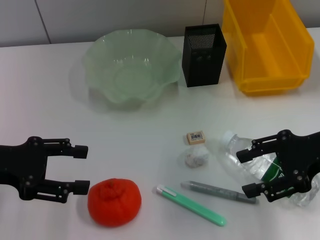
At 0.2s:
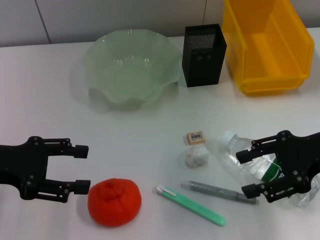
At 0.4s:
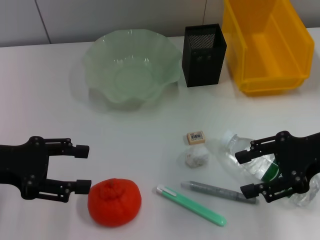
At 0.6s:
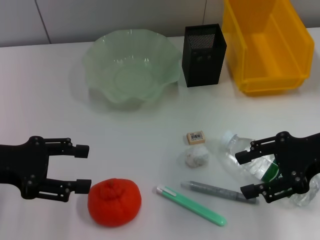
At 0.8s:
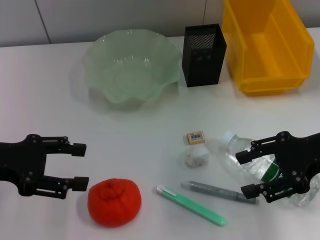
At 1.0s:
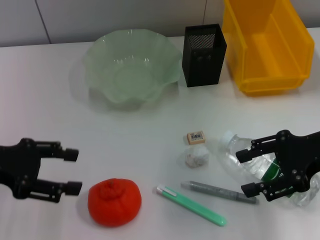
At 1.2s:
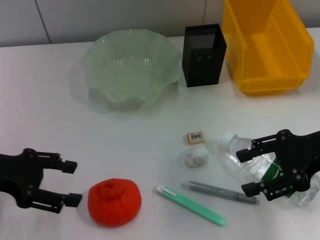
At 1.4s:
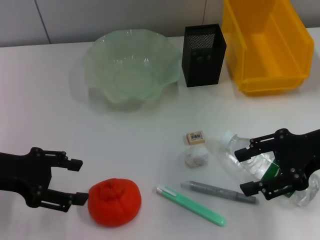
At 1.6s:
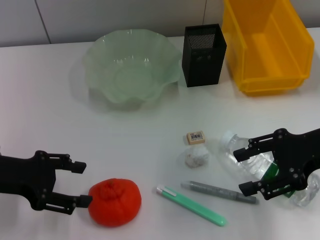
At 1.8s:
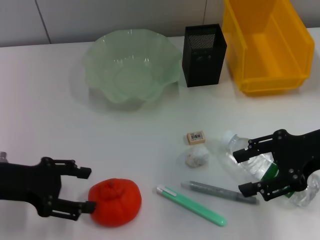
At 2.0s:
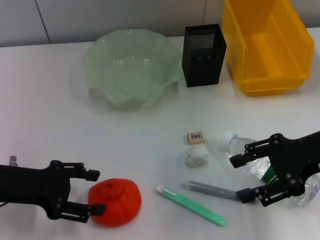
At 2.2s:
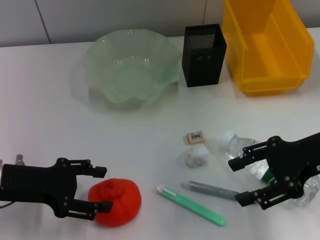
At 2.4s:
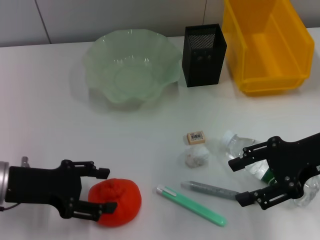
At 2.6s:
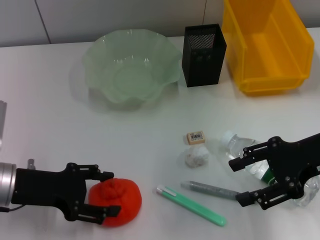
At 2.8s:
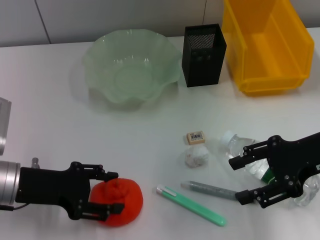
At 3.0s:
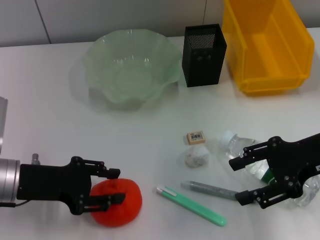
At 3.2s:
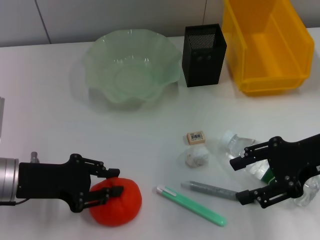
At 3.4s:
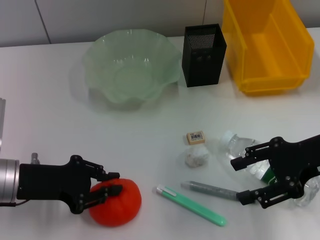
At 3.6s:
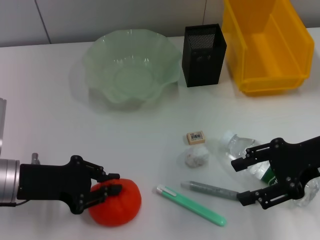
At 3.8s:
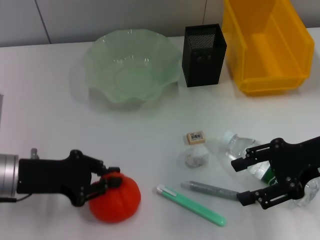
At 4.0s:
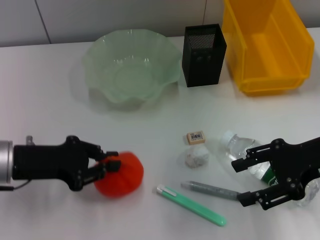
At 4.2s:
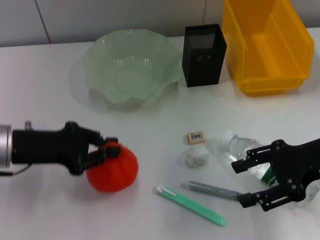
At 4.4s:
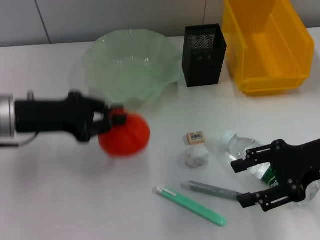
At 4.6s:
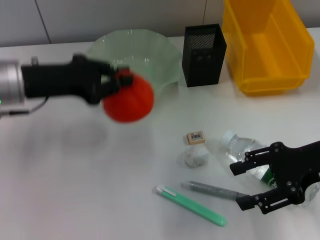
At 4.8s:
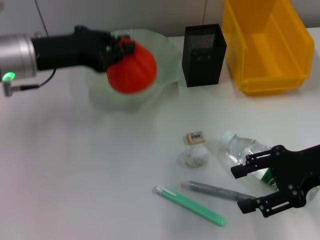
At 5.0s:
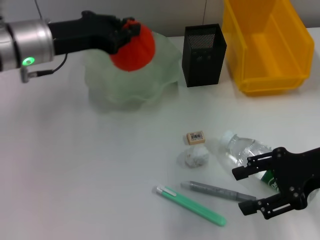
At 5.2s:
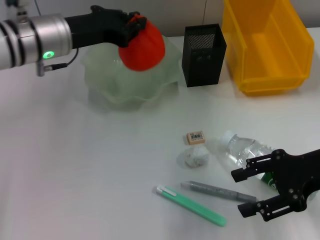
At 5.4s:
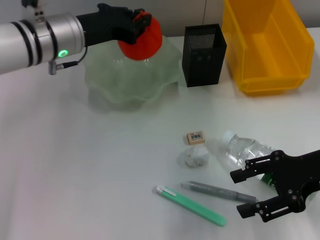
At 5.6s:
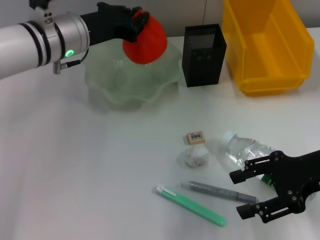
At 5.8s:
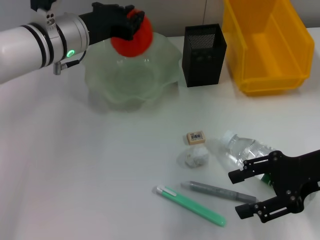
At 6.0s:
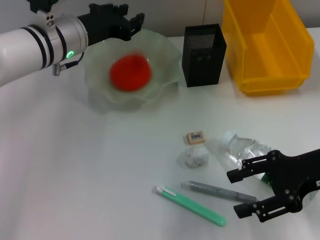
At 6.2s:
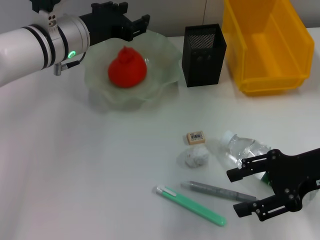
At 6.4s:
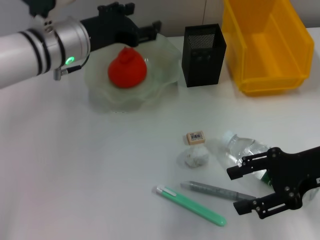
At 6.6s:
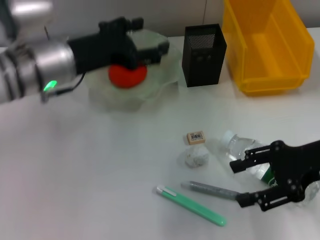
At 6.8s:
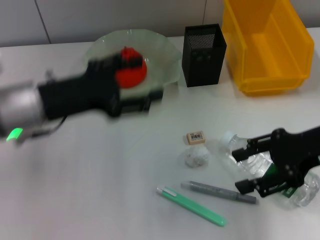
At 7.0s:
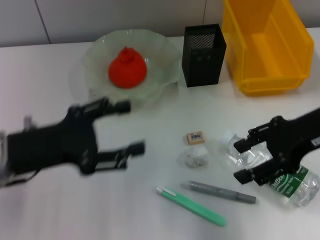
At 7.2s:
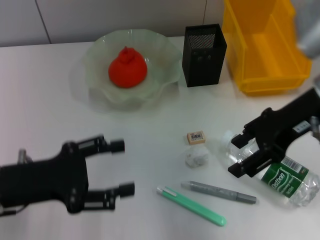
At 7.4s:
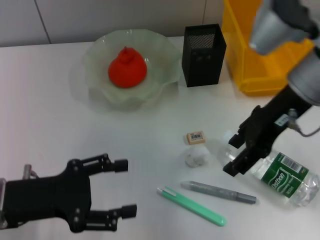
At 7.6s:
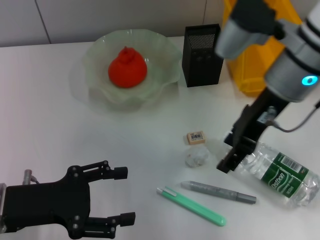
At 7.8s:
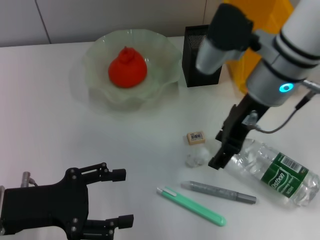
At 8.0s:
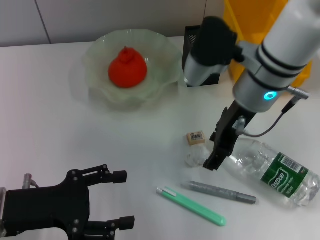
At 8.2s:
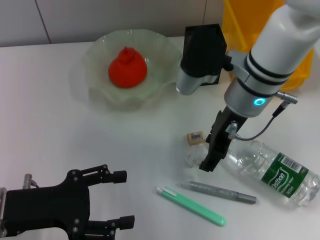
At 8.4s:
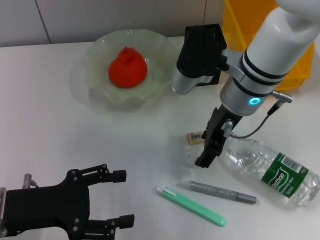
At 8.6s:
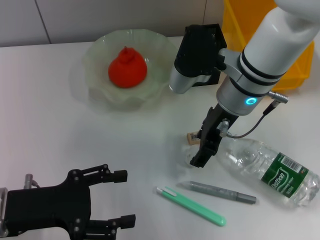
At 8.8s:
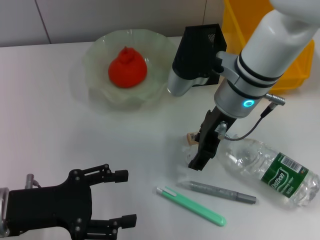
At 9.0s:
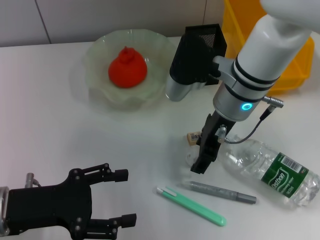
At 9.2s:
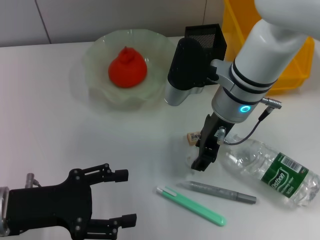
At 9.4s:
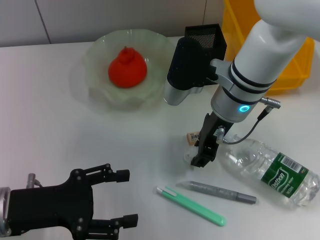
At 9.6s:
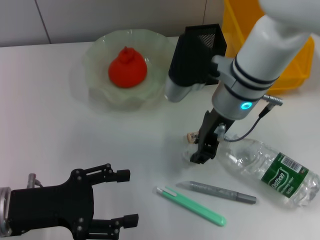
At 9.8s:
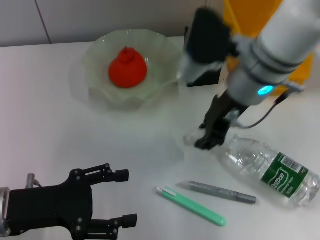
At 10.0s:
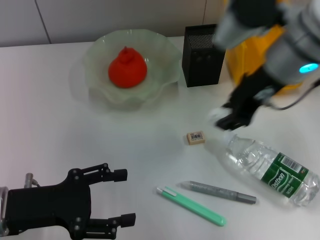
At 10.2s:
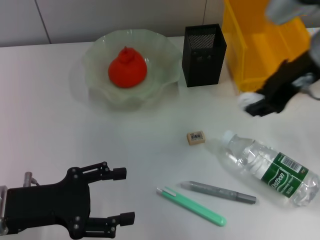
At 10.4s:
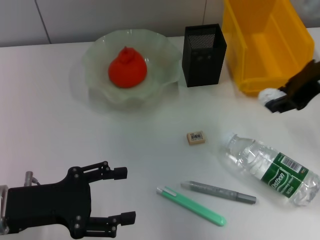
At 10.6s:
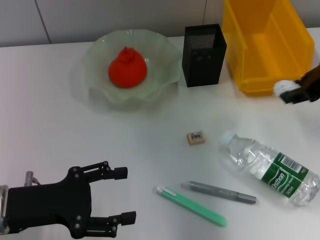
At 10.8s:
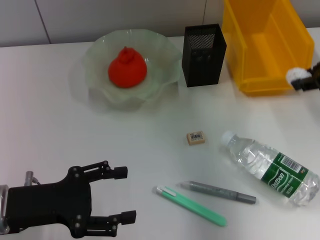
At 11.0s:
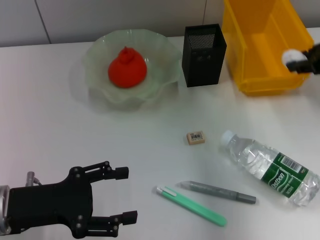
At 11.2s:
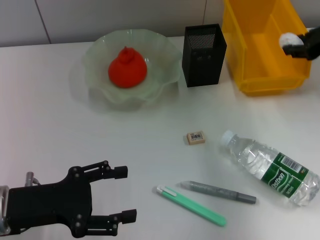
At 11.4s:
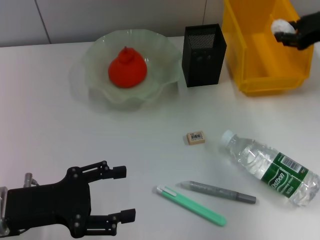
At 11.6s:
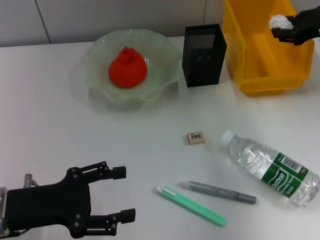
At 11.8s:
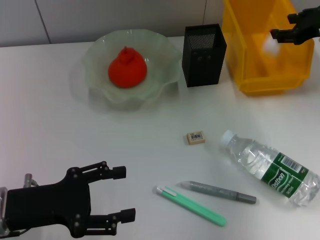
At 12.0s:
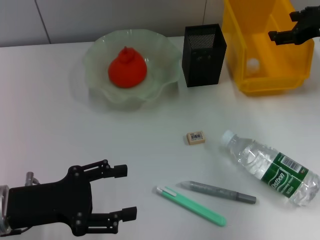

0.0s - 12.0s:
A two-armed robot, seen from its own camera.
Step, 0.0s - 3.6s: Grab the orange with the left hand.
Step, 3.8s - 6.2s: Place the orange into the fruit bowl with the left hand.
Step, 6.4s - 9.2s: Grab the paper ball with the right hand.
0.0s - 1.6s: The grippers move only a little.
1.6s - 3.0s: The left gripper changes place by approximately 5 cm.
3.0s - 4.4s: The left gripper heads upward, covering roughly 5 cm, and closes.
4.4s - 6.0s: The left gripper travels forward and to the right by approximately 15 cm.
6.0s - 7.6s: The left gripper moves backward and to the left, roughly 20 cm, and opens its fingers. The right gripper shifts about 15 cm to the left, forward and upward.
7.6s - 9.0s: The right gripper moves downward and to the left, about 10 cm.
9.0s - 10.4s: The right gripper moves to the right and upward, about 15 cm, and closes its fingers.
10.4s - 12.0s: The right gripper goes approximately 15 cm forward, to the right and downward.

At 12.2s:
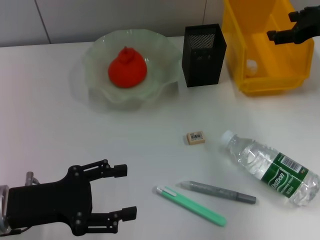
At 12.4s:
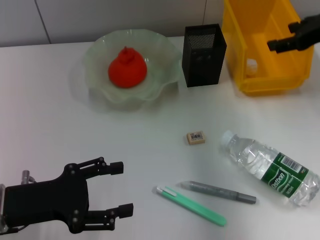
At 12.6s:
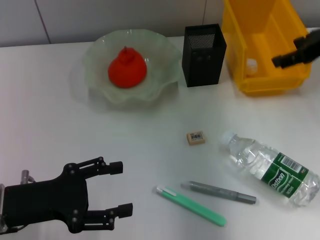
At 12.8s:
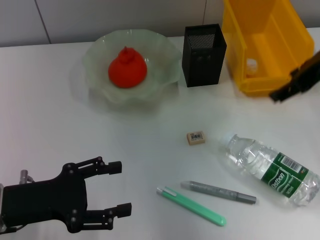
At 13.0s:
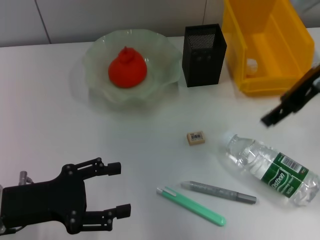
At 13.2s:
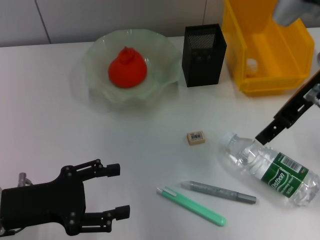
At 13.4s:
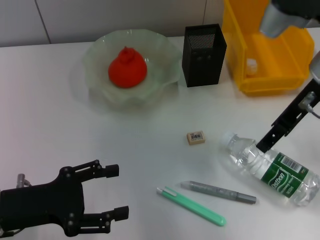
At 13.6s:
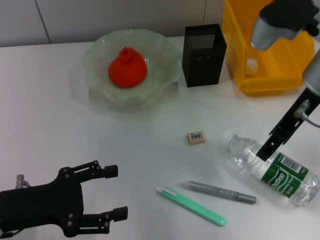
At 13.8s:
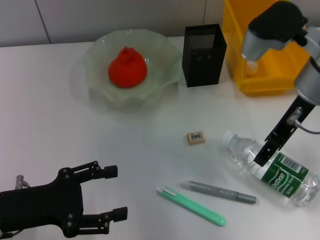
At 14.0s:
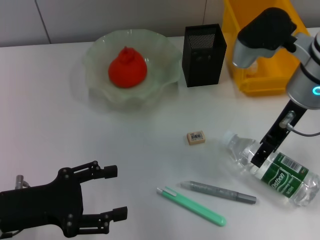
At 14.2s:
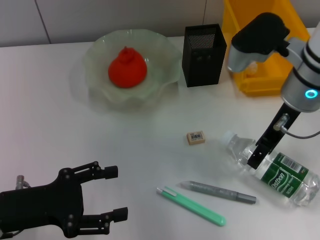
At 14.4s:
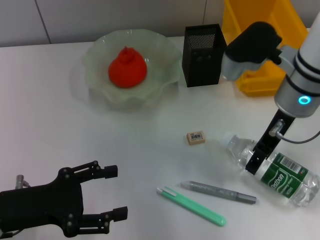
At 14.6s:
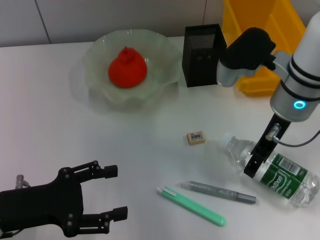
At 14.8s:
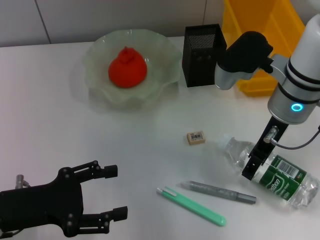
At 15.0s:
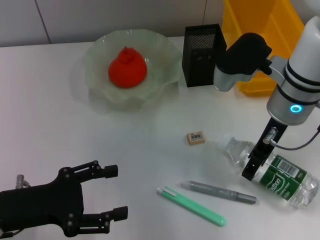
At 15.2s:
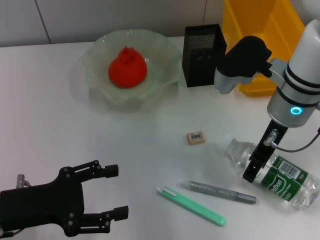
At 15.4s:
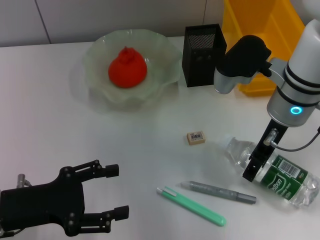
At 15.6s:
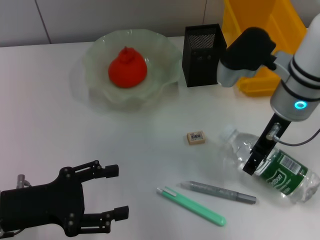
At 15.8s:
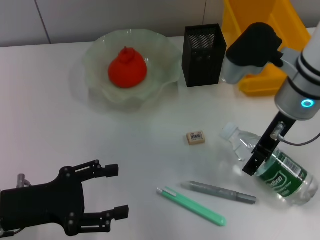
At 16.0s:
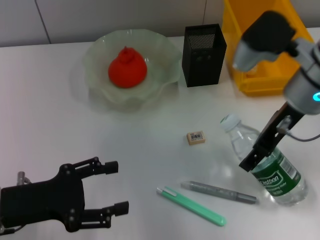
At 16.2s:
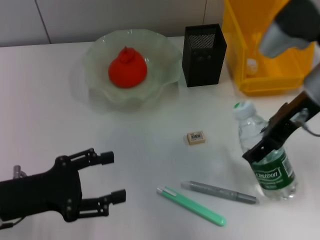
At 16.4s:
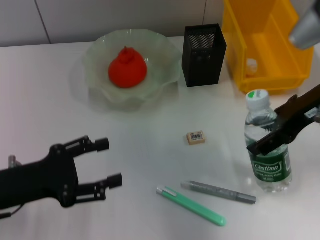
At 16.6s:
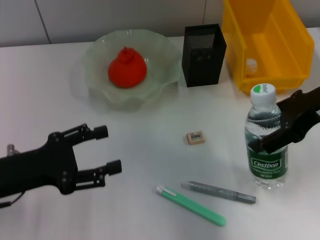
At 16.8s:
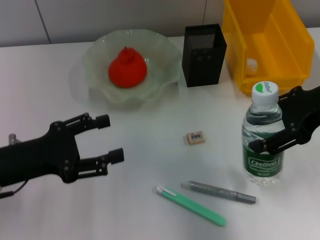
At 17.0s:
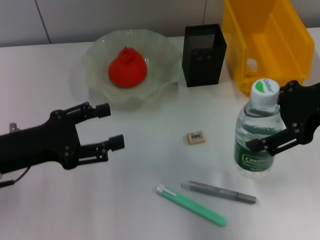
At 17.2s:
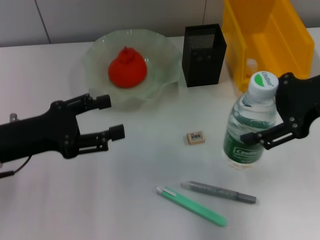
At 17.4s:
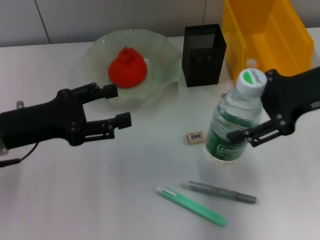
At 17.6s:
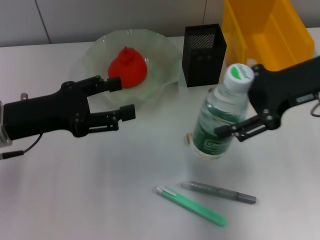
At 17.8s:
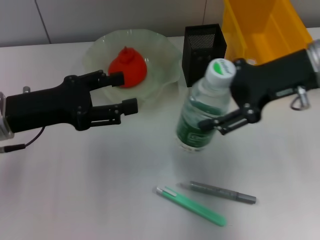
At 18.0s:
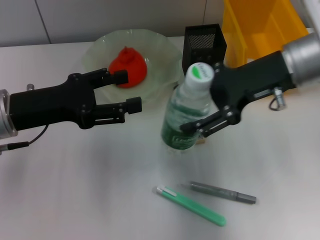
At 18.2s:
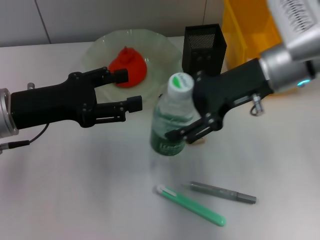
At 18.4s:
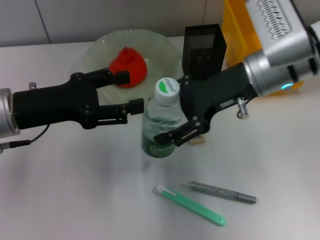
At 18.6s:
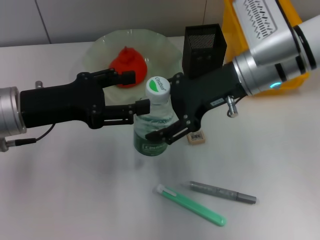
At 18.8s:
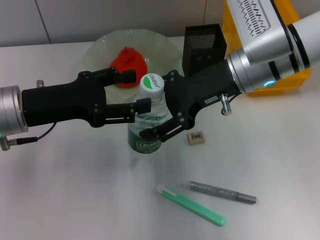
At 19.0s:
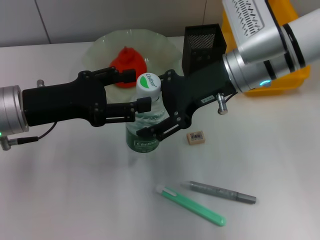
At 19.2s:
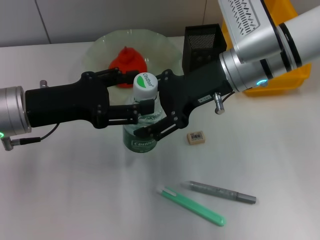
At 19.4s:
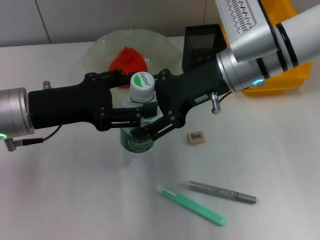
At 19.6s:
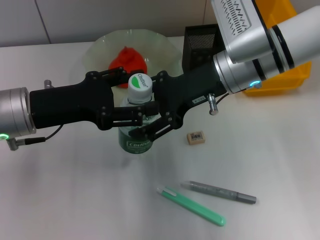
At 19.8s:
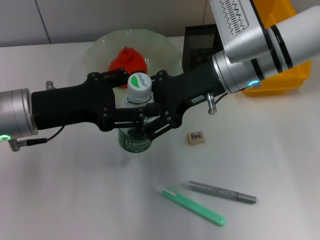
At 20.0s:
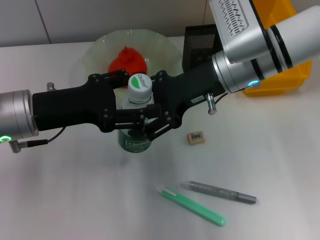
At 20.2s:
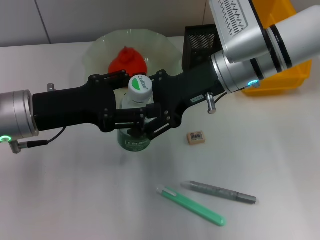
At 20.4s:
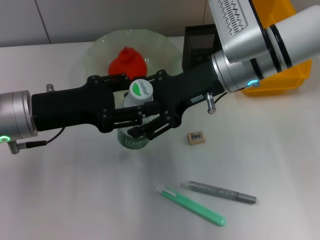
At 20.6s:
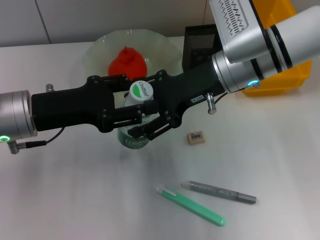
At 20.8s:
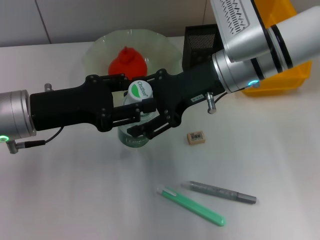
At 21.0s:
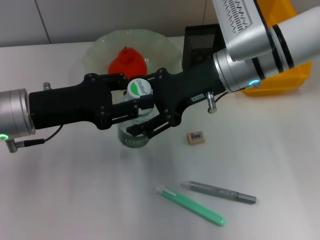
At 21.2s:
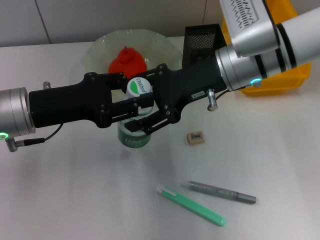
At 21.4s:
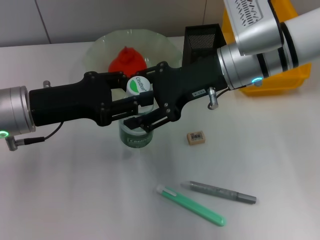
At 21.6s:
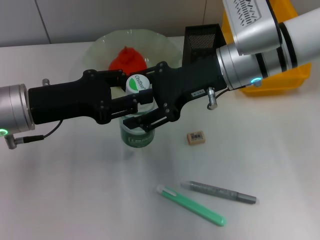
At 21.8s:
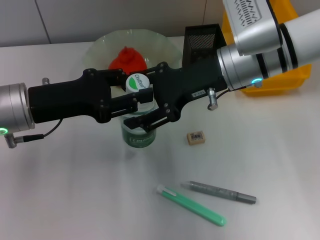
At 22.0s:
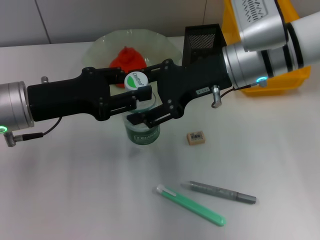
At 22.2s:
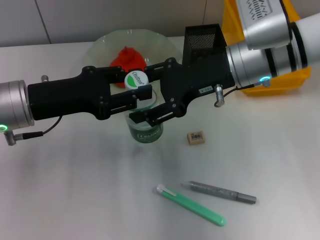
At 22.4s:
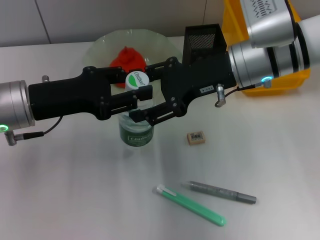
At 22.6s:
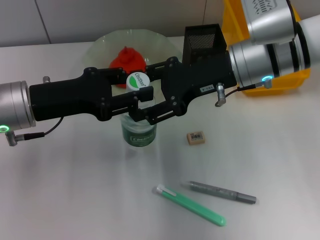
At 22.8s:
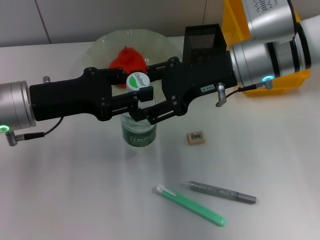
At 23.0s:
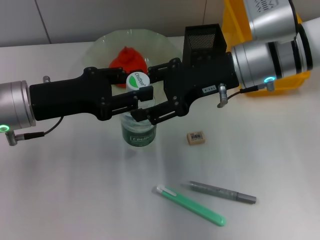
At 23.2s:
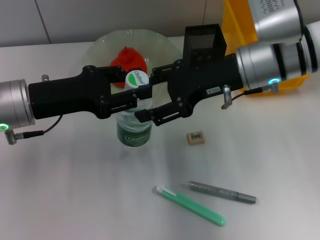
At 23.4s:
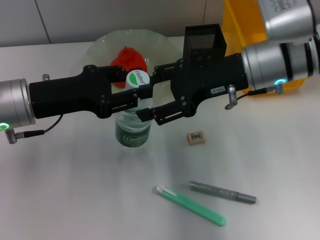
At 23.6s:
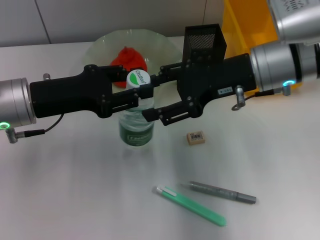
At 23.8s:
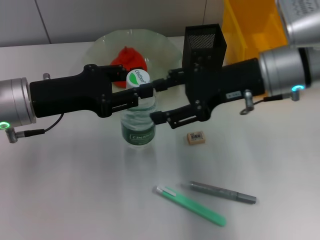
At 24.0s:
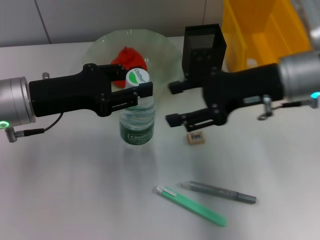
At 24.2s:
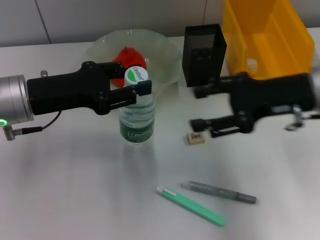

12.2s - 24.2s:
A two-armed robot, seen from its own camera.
Step, 12.4s - 15.2s: Grab the water bottle with the right hand.
Step, 15.6s - 23.2s: Pass the water bottle from the right hand to the left hand.
12.2s - 13.8s: The right gripper moves to the left and backward, roughly 15 cm.
13.8s - 15.2s: The right gripper changes place by some 5 cm.
15.2s - 16.6s: The right gripper is displaced to the right and upward by about 10 cm.
16.6s - 18.2s: The left gripper goes about 5 cm forward. Meanwhile the right gripper shifts approximately 10 cm to the left and forward.
18.2s - 19.8s: The right gripper changes place by some 5 cm.
19.8s - 21.2s: The left gripper closes.
21.2s - 22.6s: The grippers stay close to where they were, moving slightly.
22.6s - 24.2s: The right gripper moves to the right and backward, about 10 cm.
